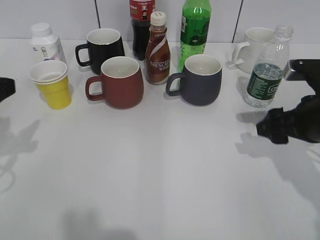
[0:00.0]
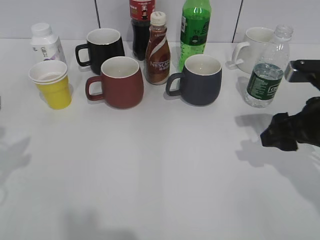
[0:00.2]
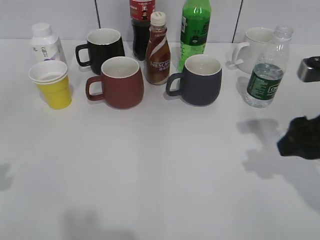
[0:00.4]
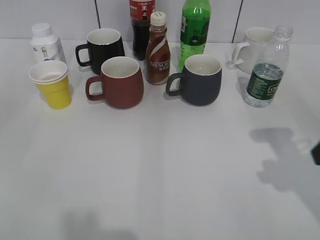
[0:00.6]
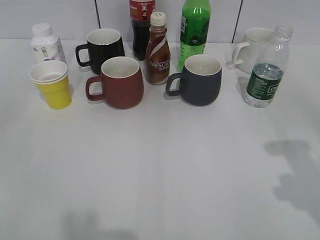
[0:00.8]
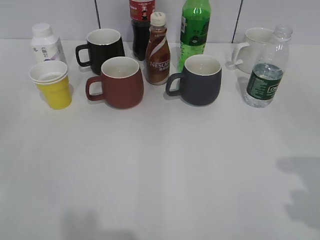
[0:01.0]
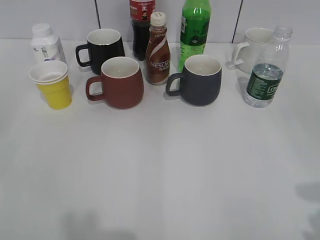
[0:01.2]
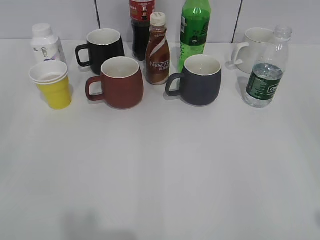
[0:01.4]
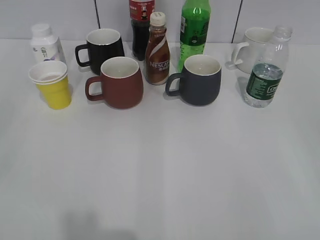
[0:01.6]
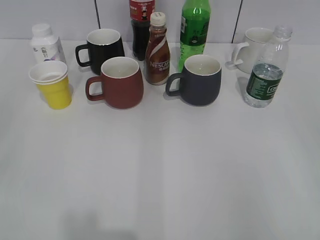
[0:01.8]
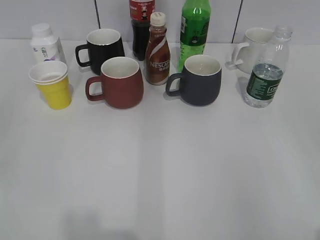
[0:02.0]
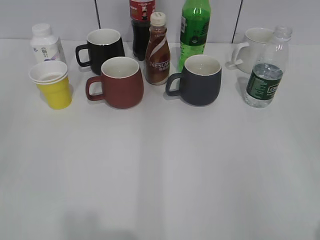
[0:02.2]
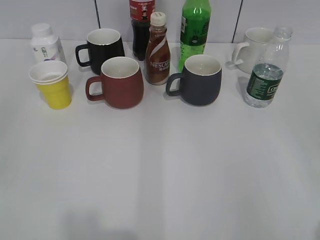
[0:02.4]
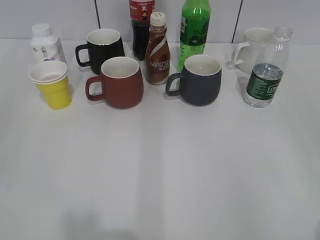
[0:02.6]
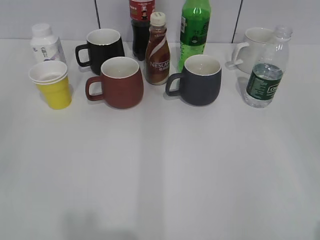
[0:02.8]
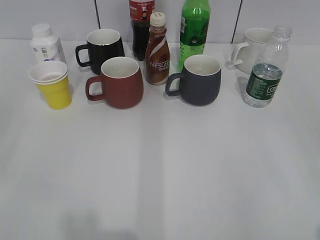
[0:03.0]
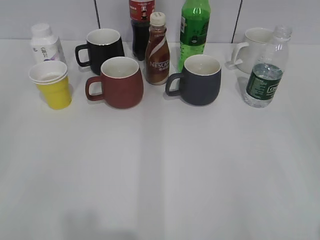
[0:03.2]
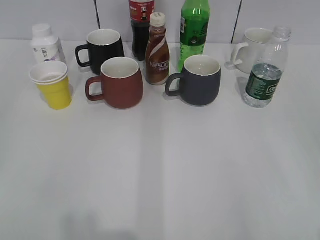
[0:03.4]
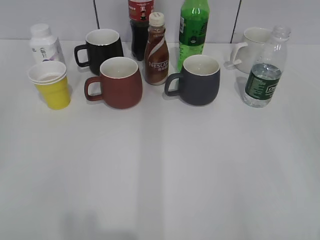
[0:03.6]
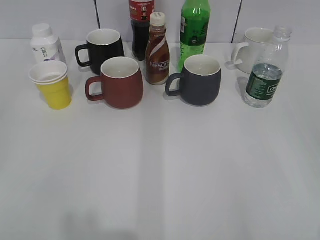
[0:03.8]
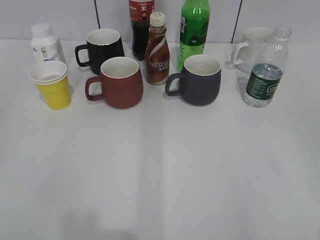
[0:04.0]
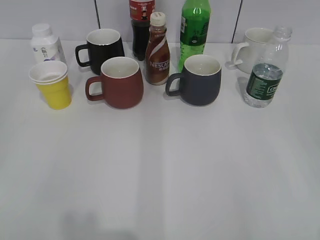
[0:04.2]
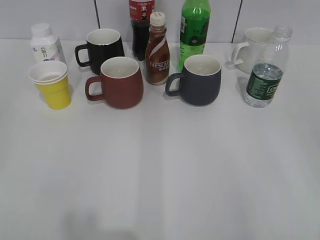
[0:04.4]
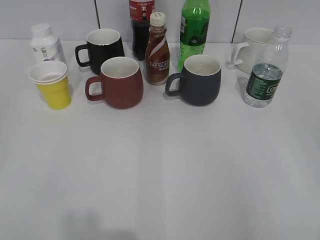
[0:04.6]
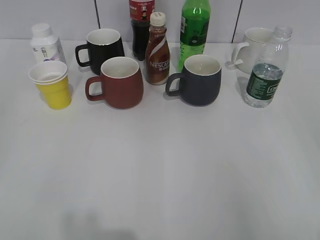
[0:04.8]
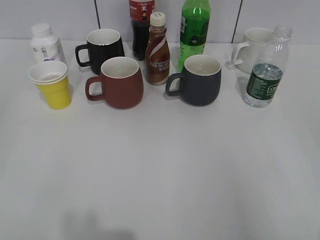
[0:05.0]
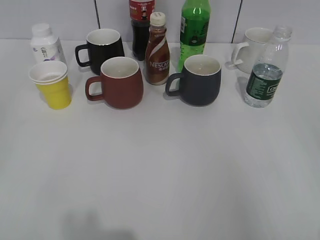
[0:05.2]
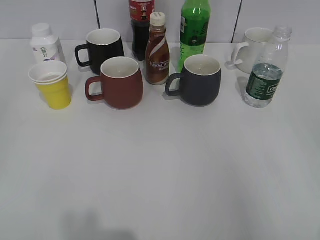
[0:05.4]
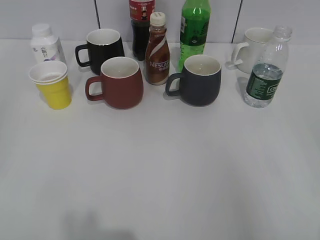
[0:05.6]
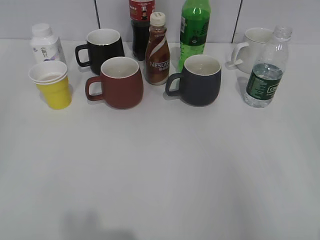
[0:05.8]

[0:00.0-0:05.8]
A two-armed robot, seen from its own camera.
0:00.0 to 0:01.4: The right gripper goes roughly 25 cm backward and upward.
0:04.4 to 0:05.8: Both grippers stay put.

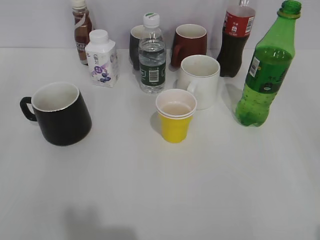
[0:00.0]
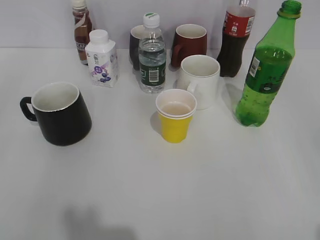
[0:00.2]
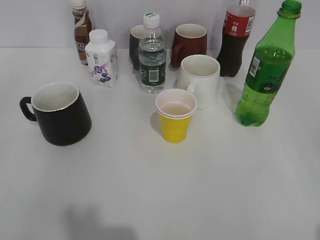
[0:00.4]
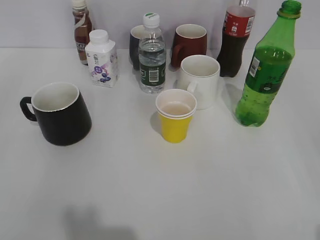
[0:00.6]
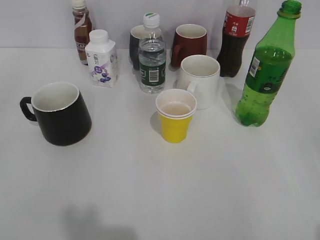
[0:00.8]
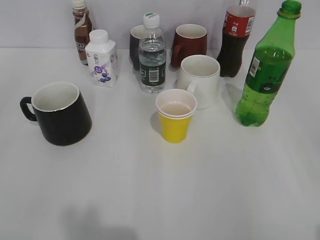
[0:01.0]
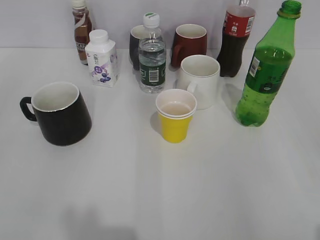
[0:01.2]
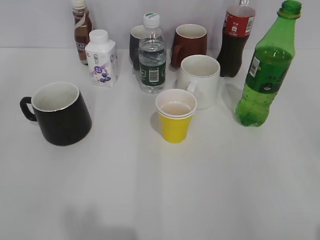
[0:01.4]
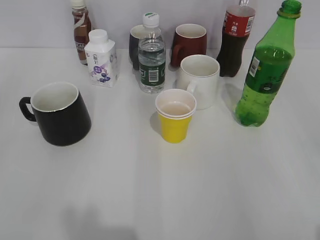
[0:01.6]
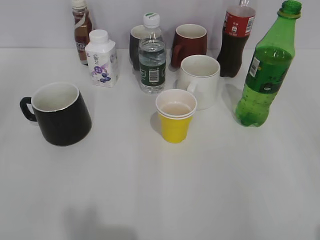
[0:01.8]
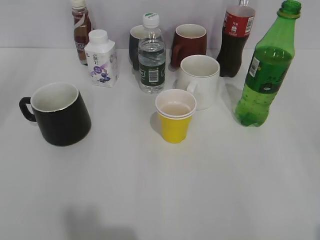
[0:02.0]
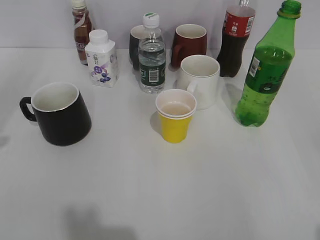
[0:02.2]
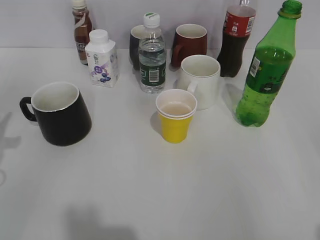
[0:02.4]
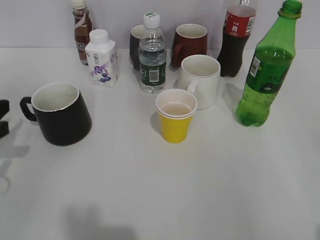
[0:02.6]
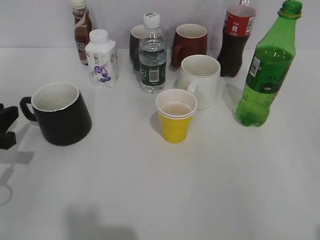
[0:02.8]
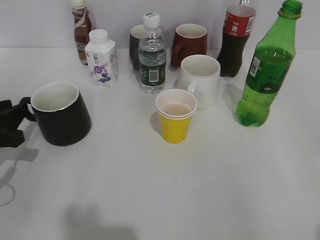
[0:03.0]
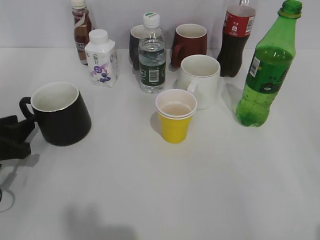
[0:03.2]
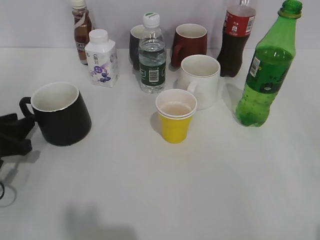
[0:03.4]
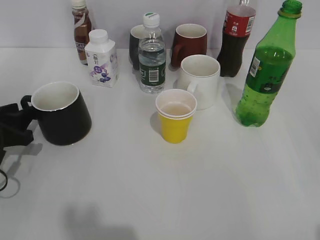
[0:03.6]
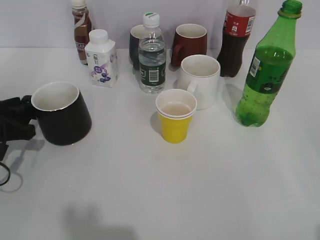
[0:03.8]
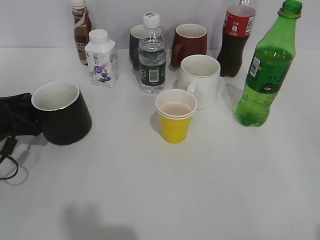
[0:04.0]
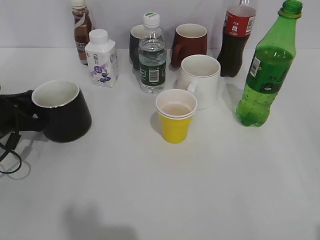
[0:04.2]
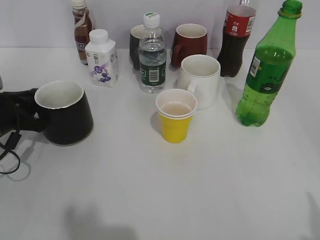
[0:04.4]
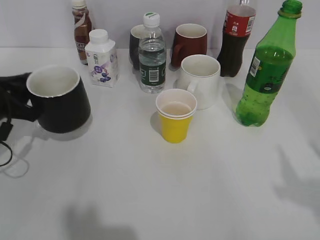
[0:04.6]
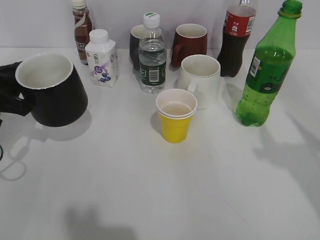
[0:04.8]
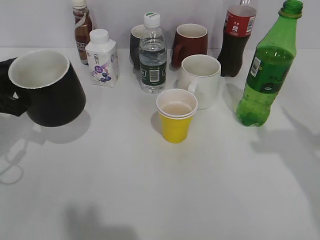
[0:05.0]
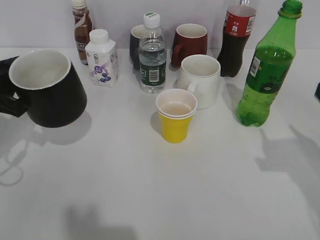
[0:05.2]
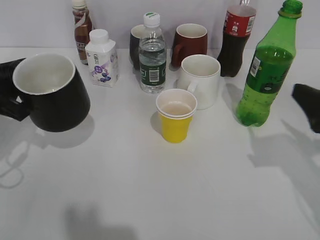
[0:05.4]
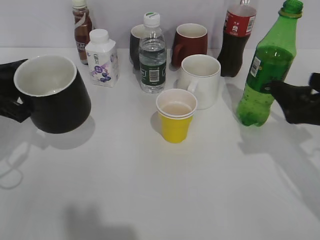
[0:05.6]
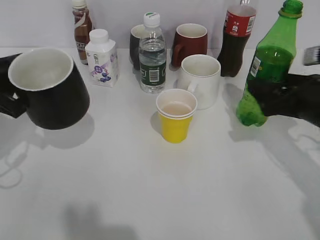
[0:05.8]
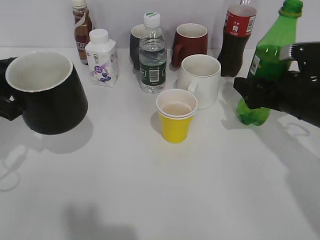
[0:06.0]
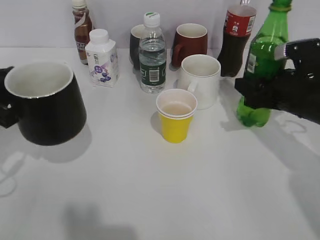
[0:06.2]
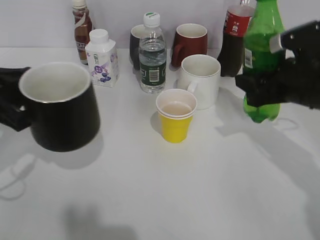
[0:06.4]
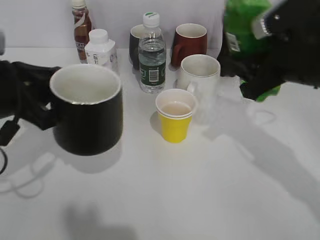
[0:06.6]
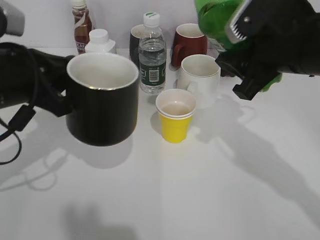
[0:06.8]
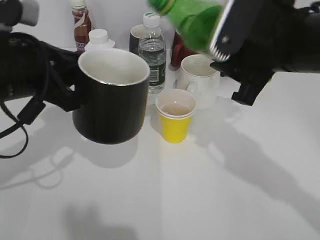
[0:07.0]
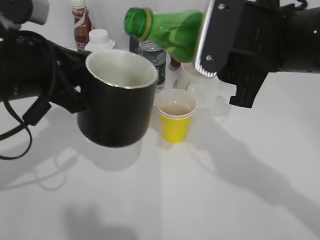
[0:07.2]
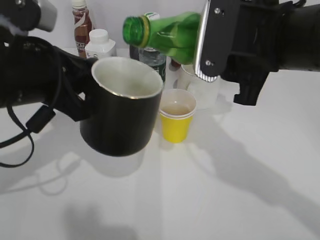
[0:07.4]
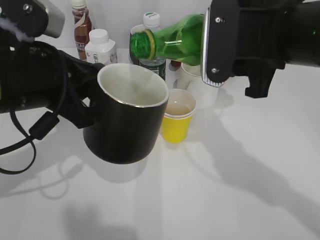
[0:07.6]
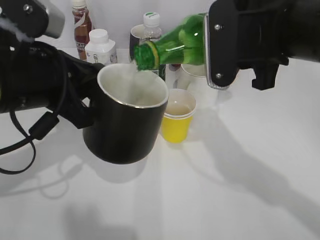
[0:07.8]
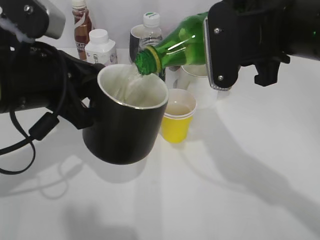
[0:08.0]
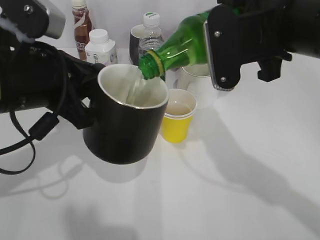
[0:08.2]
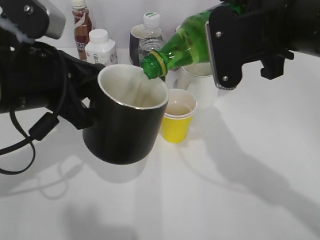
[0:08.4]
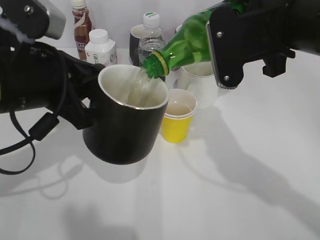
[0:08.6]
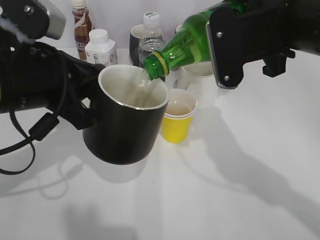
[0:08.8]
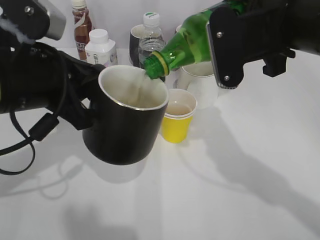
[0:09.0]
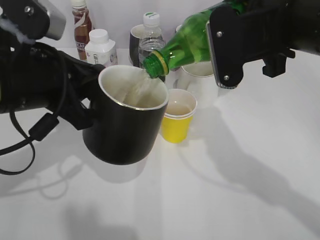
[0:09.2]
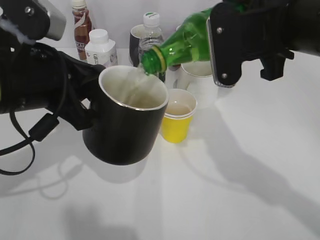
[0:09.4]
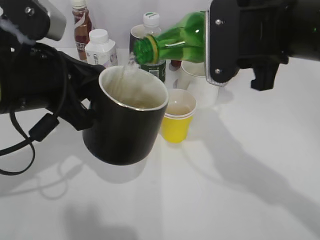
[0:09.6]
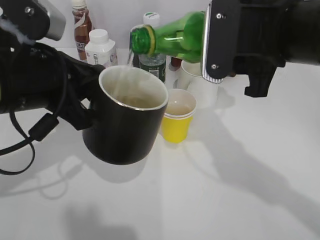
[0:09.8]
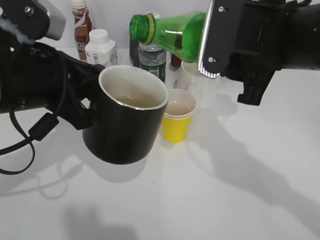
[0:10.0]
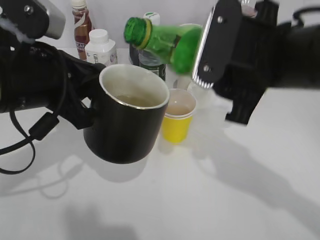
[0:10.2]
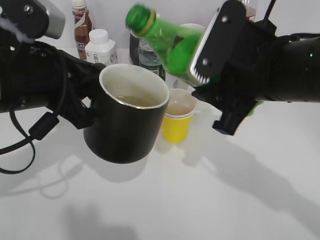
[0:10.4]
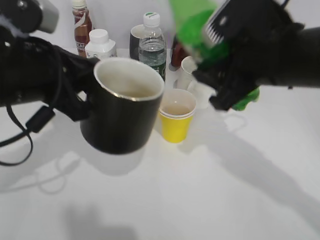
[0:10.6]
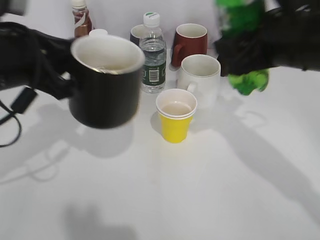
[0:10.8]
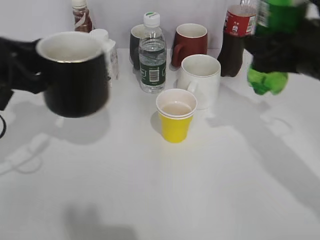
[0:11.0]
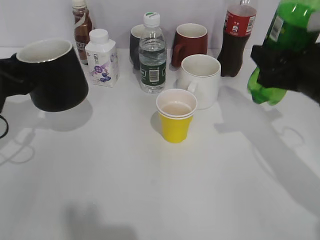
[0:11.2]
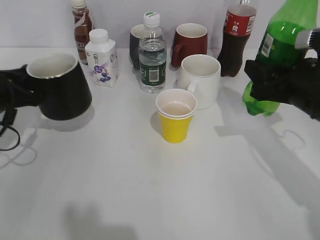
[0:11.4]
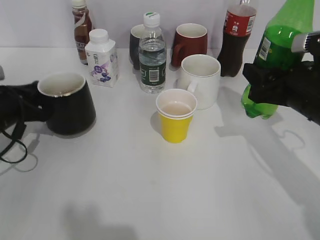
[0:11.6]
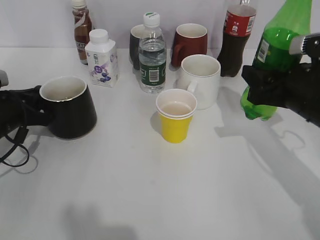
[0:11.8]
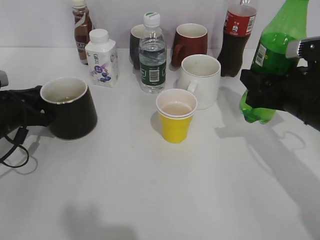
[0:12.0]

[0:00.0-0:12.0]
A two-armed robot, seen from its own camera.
Step, 0:01.6 to 0:04.0: Grasp the black cup with left gripper.
Step, 0:04.4 to 0:06.0: Grasp the bottle with sprite with right gripper.
Step, 0:06.2 to 0:09.8: Pour the sprite from bottle to cup with right gripper.
0:01.6 to 0:03.0: The left gripper goes about 25 cm forward and downward.
0:03.0 to 0:04.4: The left gripper is displaced forward by roughly 5 cm, and closes.
0:04.4 to 0:06.0: The right gripper is displaced forward and downward by approximately 30 cm, and opens. The left gripper travels upward and backward by about 10 cm.
0:06.0 to 0:07.6: The right gripper heads upward, to the left and backward, covering approximately 20 cm, and closes. Meanwhile the left gripper shifts roughly 15 cm to the right and upward.
0:10.4 to 0:12.0: The right gripper is displaced to the right and downward by roughly 15 cm. Meanwhile the left gripper heads downward, to the left and forward, covering approximately 20 cm.

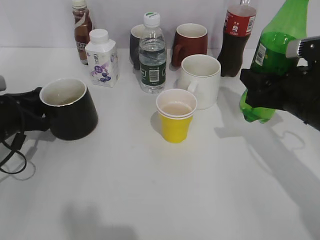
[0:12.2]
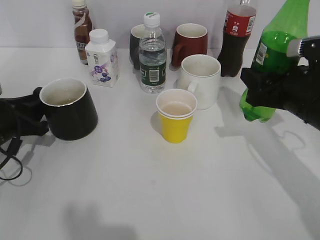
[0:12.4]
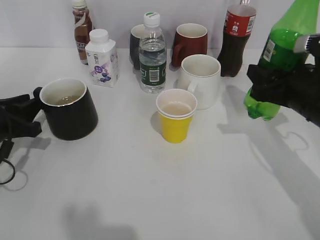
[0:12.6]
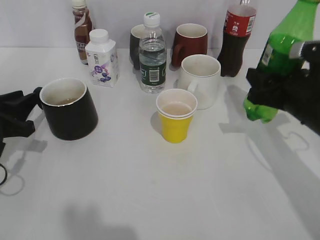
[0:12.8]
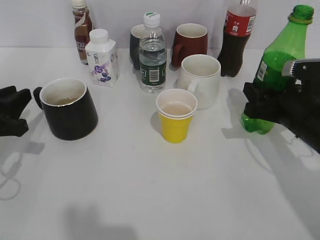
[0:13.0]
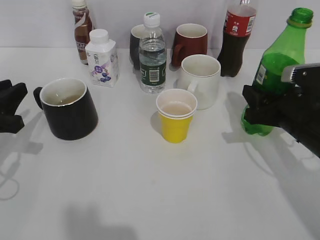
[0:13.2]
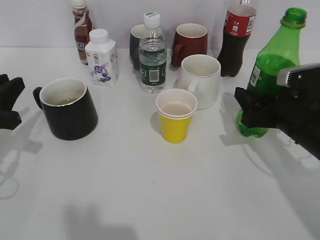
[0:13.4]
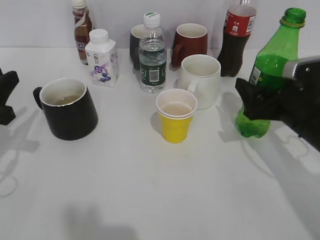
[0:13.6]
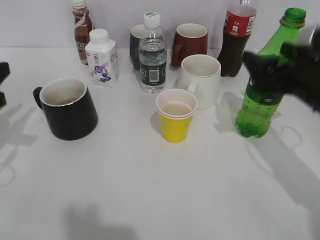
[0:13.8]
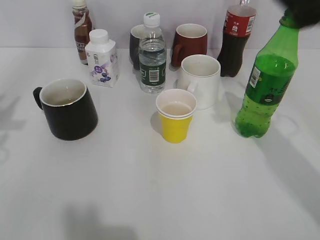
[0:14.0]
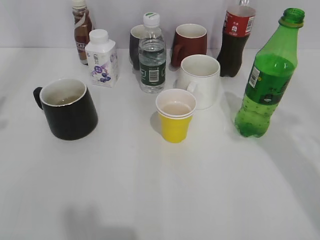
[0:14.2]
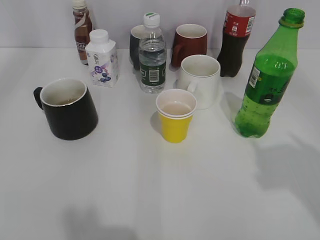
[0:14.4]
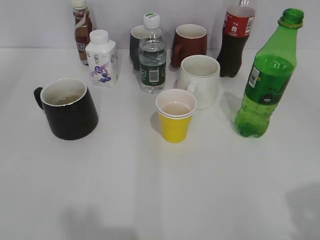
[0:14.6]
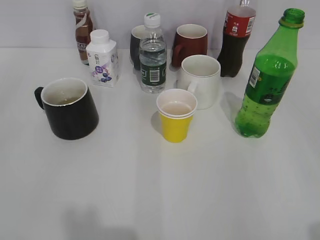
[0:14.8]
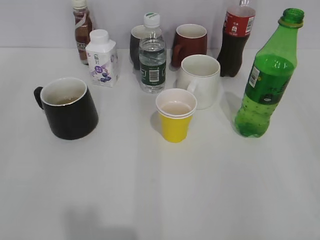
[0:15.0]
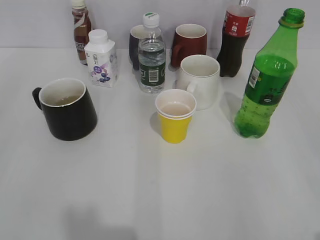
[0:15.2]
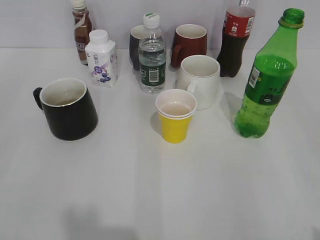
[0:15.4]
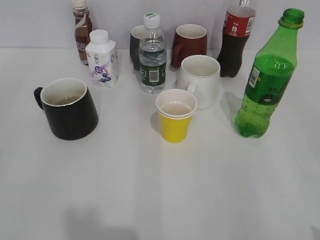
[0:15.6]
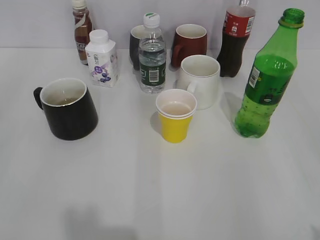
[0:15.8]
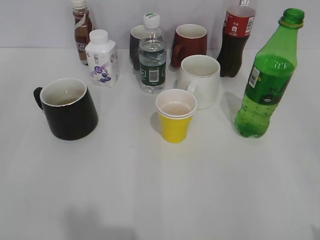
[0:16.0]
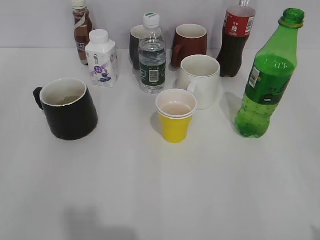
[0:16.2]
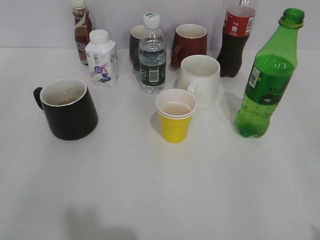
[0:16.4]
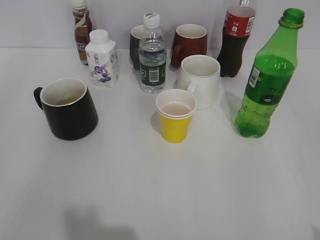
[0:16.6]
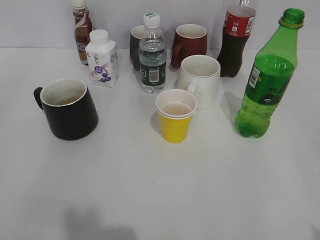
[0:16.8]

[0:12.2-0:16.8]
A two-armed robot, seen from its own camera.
Step, 0:12.6 to 0:13.8: Place the sprite bottle on the table with right gripper.
0:12.2 to 0:13.8: The left gripper goes some 10 cm upward and backward; the right gripper opens its fingers.
0:13.8 to 0:15.2: The two grippers go some 25 cm backward. The left gripper opens its fingers.
0:15.2 to 0:16.8: The left gripper closes up.
